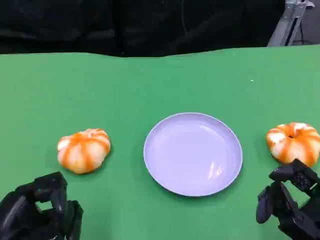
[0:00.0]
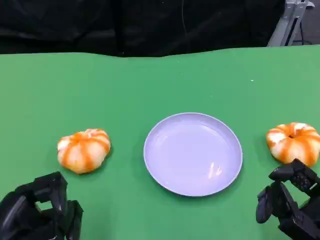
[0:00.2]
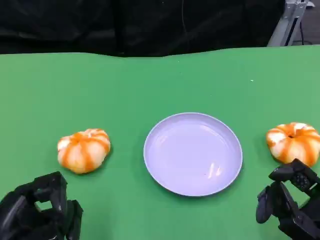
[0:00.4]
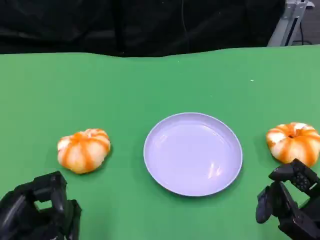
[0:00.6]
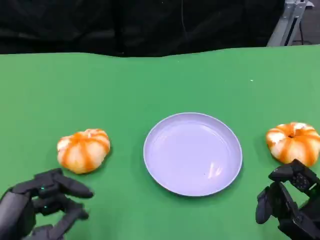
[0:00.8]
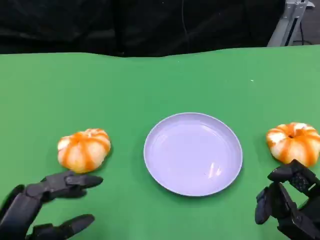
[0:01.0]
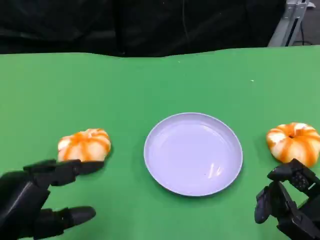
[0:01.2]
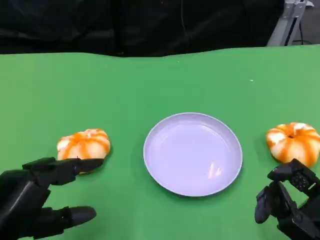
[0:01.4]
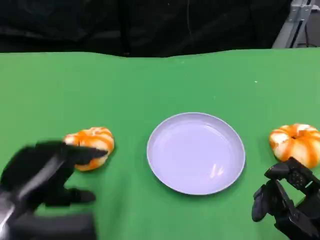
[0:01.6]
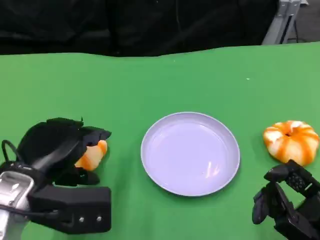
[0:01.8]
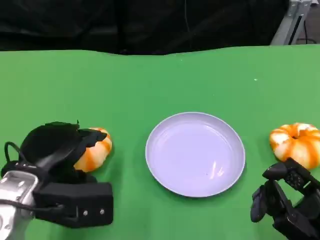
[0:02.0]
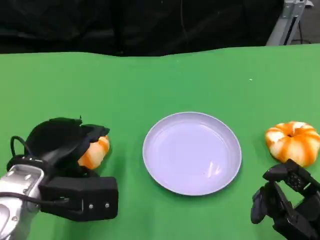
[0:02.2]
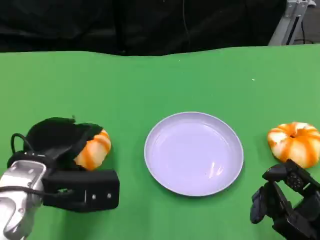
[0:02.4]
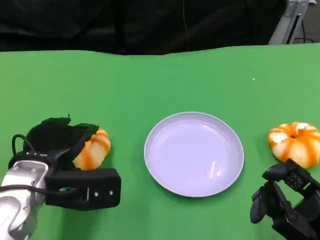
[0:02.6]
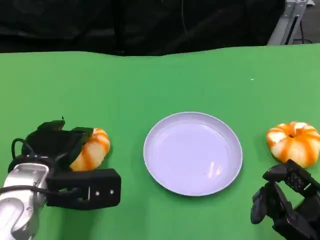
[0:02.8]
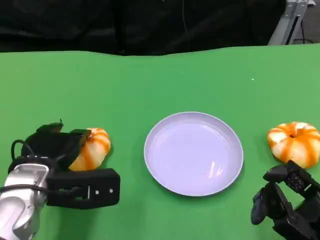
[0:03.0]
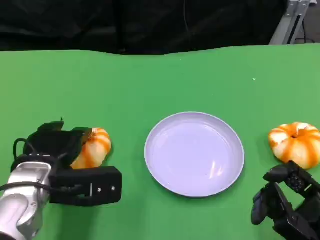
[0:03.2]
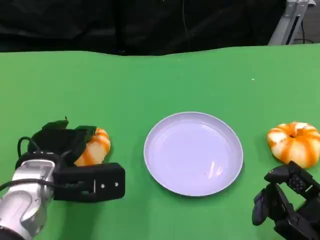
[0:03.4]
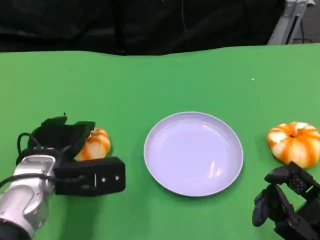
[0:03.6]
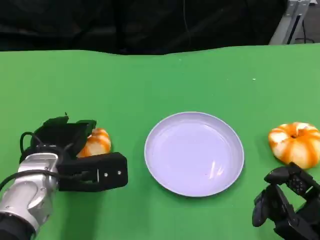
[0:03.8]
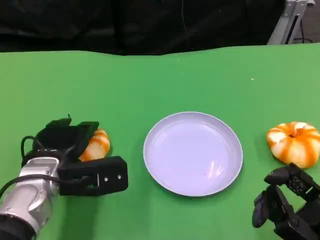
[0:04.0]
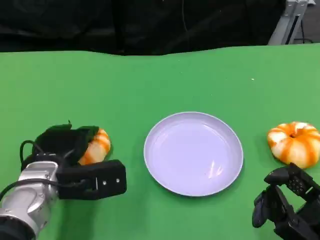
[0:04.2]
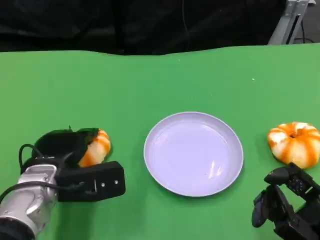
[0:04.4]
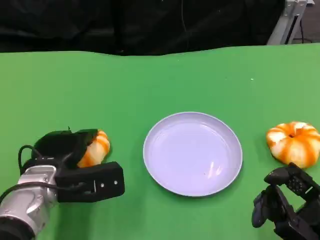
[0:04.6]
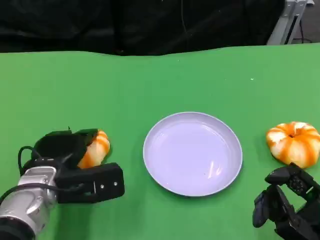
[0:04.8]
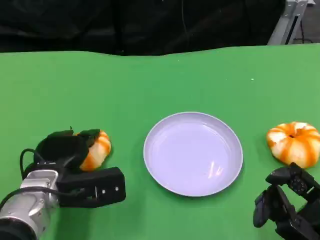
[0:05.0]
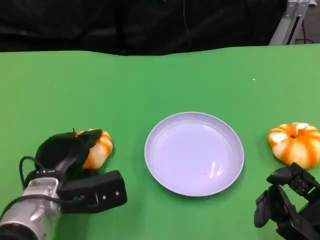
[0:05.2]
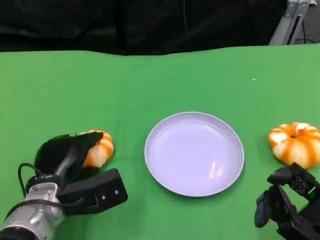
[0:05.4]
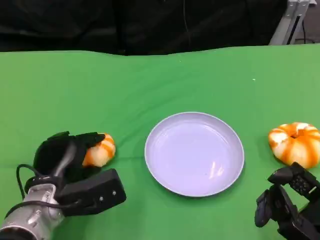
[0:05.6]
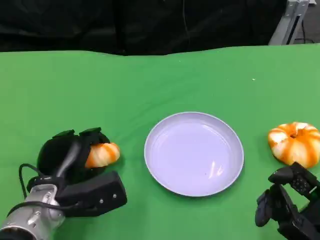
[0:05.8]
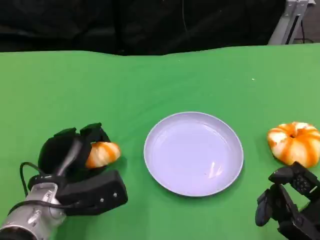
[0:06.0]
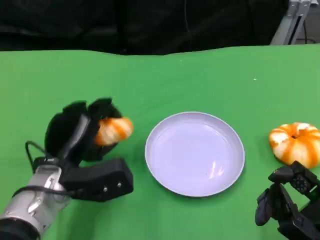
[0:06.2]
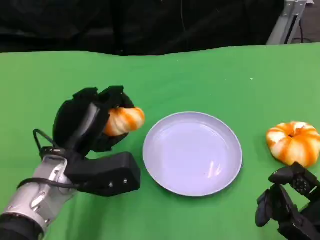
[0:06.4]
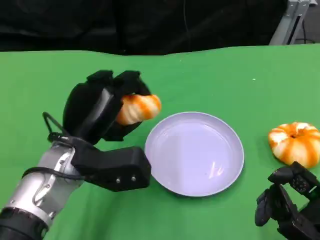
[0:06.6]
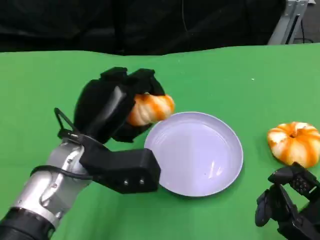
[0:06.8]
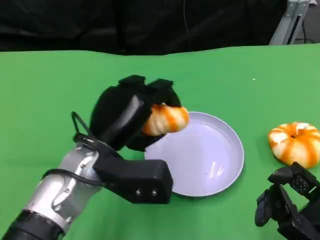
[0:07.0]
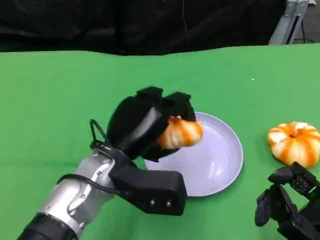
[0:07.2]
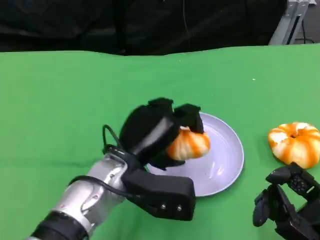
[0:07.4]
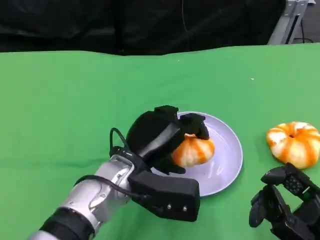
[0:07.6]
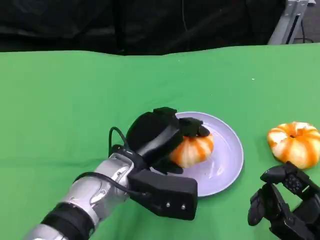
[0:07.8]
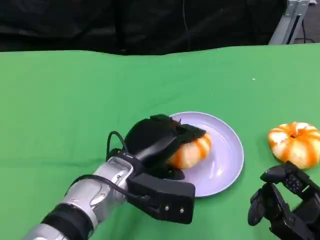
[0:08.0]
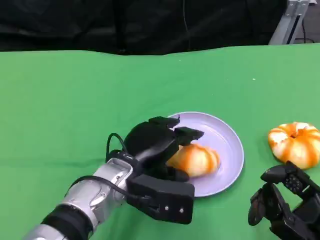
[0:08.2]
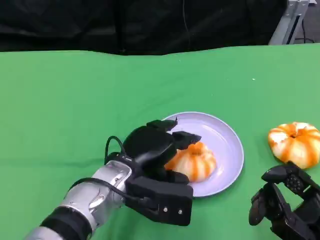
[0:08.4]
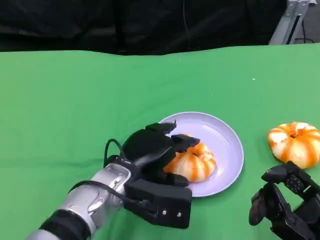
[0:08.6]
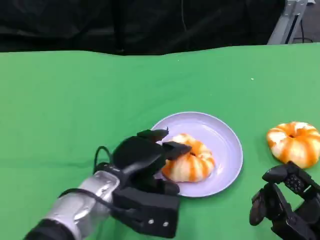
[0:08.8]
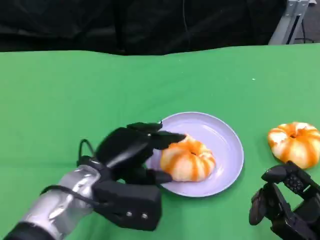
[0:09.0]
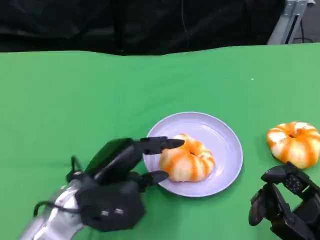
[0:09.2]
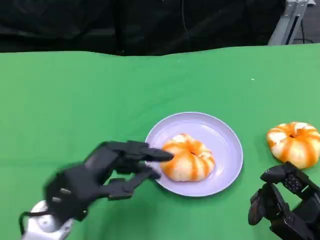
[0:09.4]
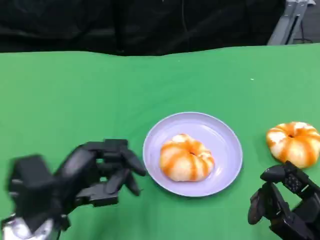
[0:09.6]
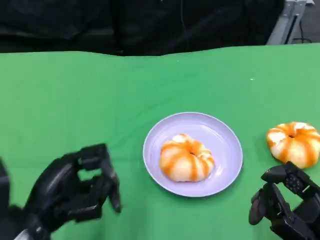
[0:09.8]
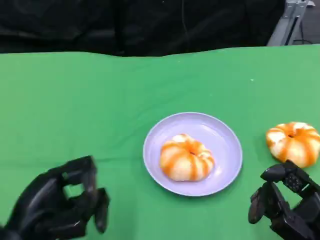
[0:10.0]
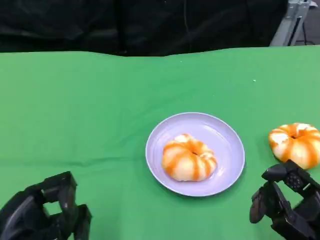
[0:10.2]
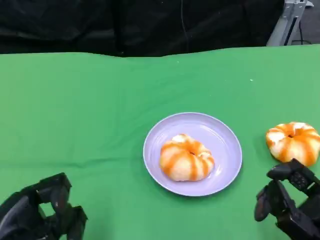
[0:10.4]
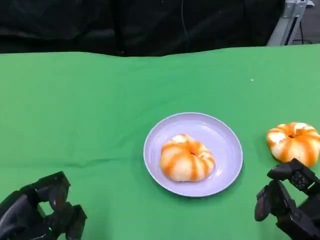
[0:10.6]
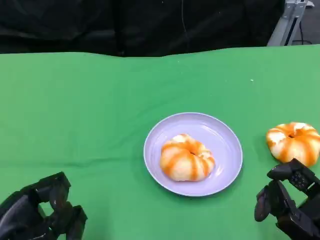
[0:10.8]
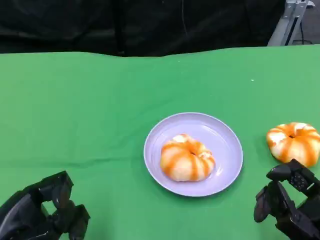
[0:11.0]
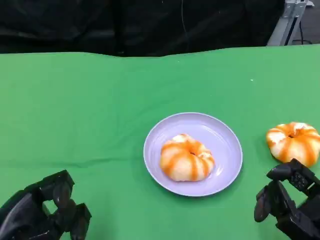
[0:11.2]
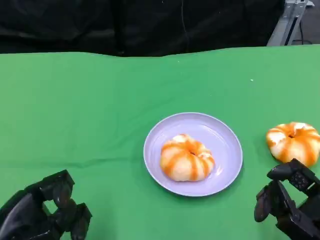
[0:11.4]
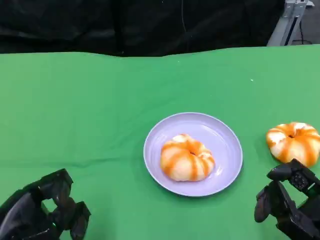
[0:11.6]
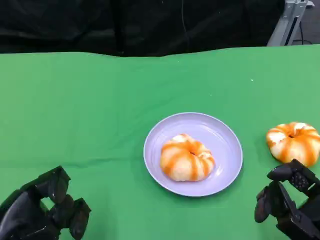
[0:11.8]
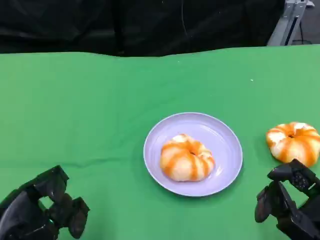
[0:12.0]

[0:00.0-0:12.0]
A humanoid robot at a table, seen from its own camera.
Task of the whole recording: Grasp the bread from the table and place it into the plate.
0:00.0 to 0:01.6: The left hand is displaced forward by roughly 5 cm.
0:01.6 to 0:03.0: The left hand travels forward by about 5 cm.
0:03.0 to 0:04.4: The hands make only small movements.
0:06.0 to 0:07.6: The left hand goes some 10 cm to the right and upward.
0:07.6 to 0:09.0: The left hand goes roughly 5 cm to the left.
0:09.0 to 0:10.4: The left hand heads to the left and backward, covering some 15 cm.
0:10.4 to 0:12.0: The hands make only small movements.

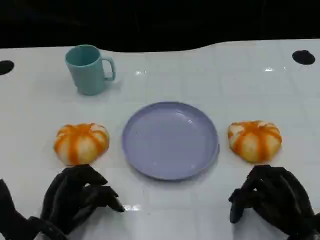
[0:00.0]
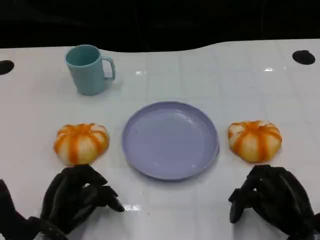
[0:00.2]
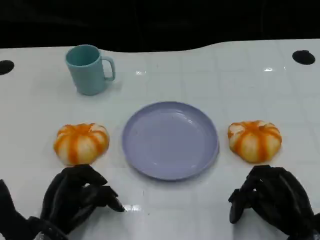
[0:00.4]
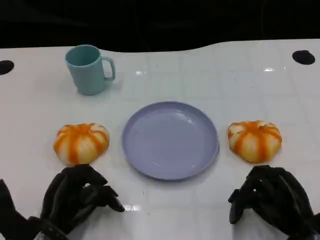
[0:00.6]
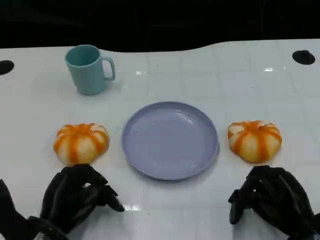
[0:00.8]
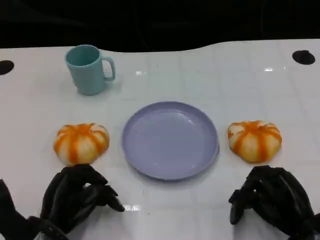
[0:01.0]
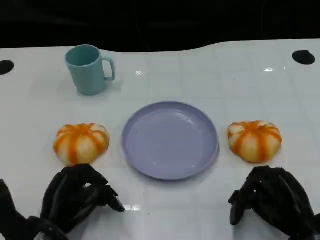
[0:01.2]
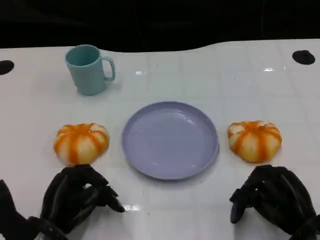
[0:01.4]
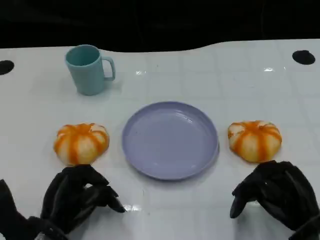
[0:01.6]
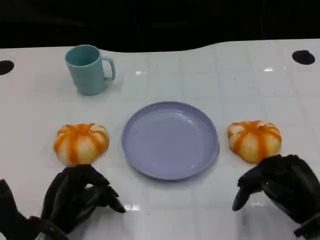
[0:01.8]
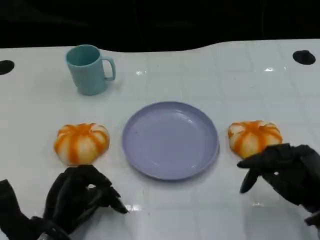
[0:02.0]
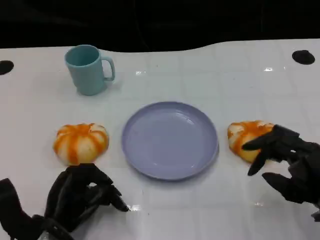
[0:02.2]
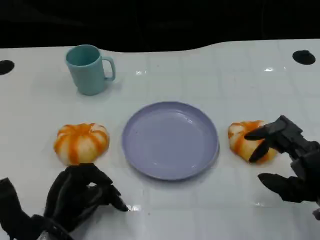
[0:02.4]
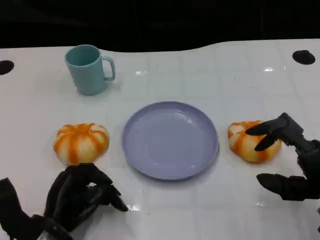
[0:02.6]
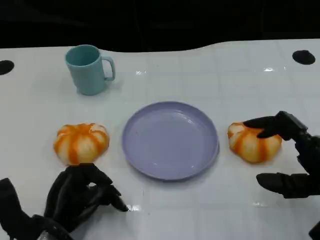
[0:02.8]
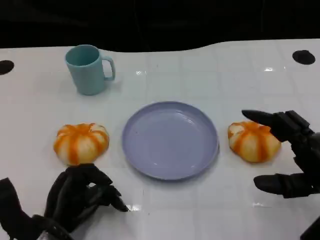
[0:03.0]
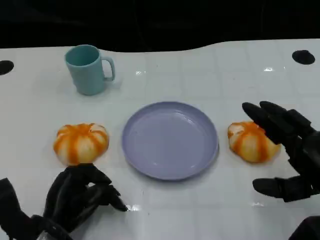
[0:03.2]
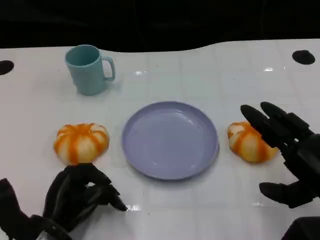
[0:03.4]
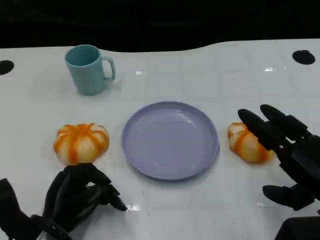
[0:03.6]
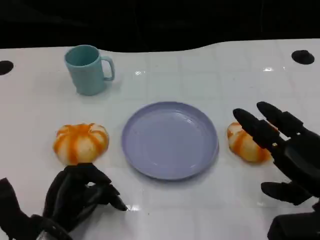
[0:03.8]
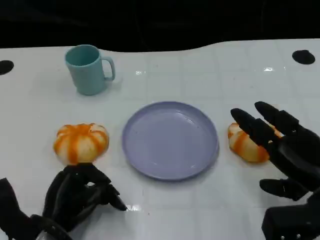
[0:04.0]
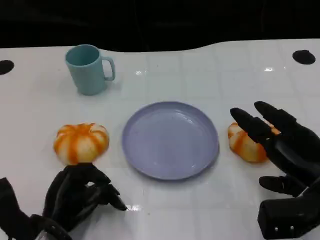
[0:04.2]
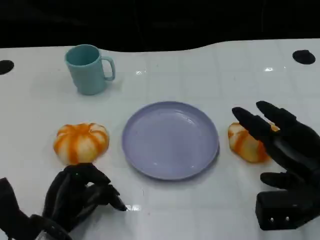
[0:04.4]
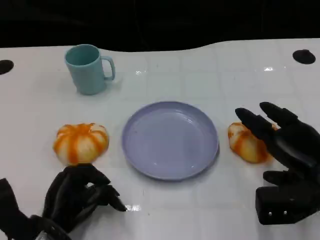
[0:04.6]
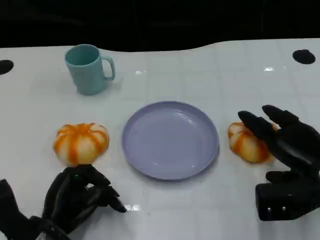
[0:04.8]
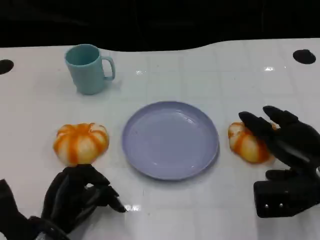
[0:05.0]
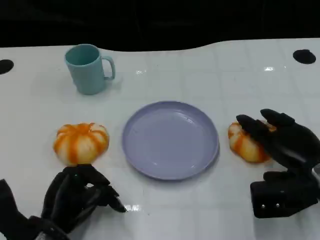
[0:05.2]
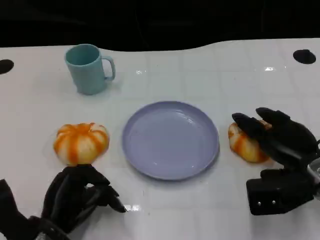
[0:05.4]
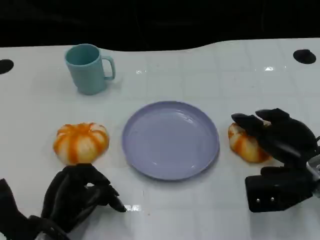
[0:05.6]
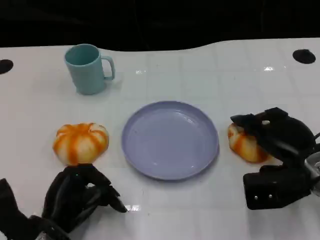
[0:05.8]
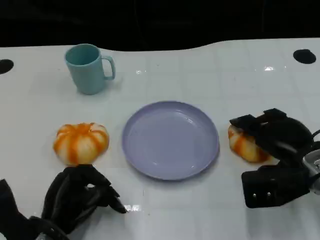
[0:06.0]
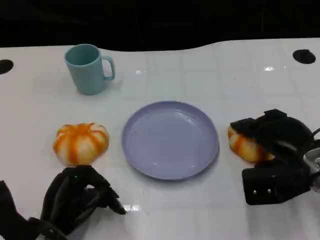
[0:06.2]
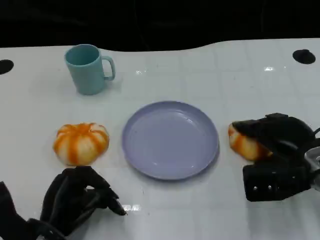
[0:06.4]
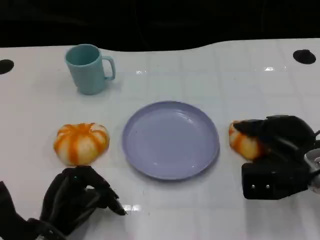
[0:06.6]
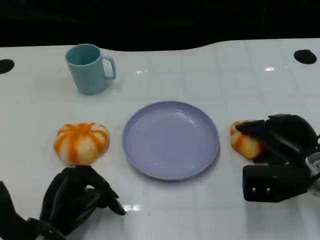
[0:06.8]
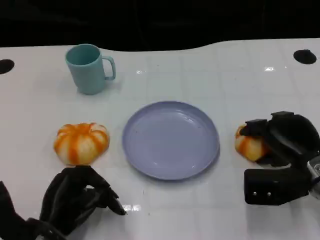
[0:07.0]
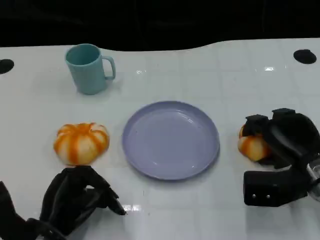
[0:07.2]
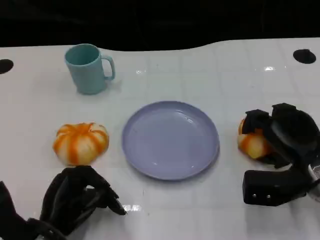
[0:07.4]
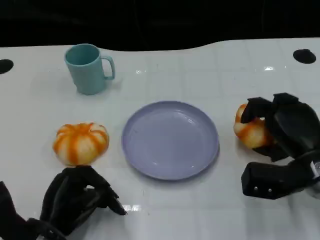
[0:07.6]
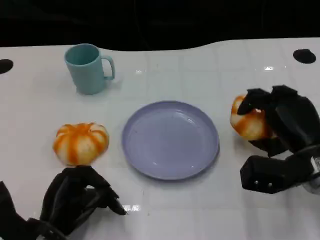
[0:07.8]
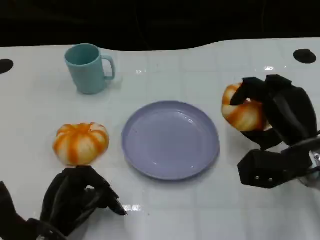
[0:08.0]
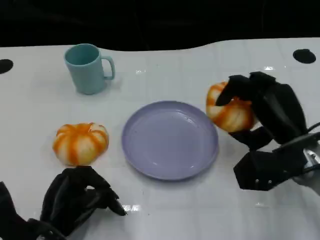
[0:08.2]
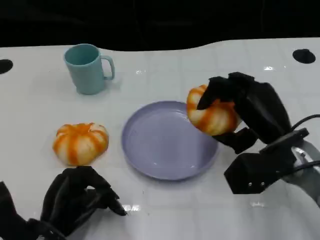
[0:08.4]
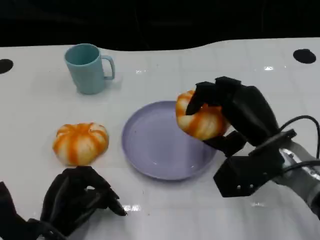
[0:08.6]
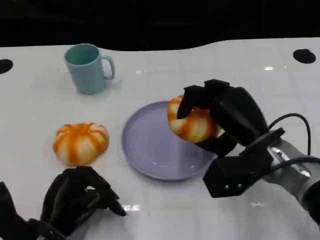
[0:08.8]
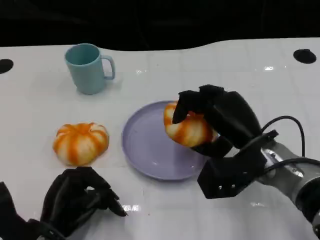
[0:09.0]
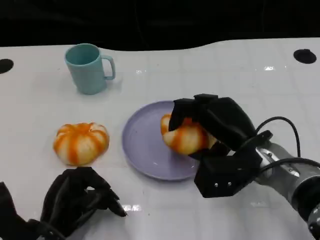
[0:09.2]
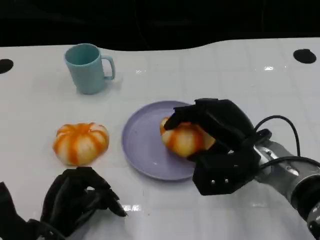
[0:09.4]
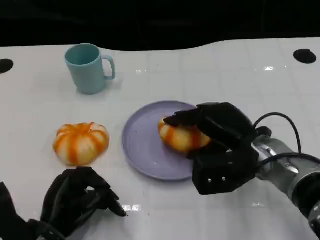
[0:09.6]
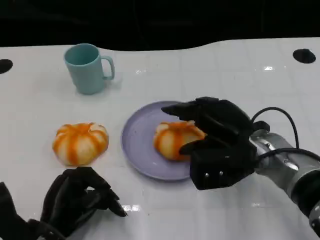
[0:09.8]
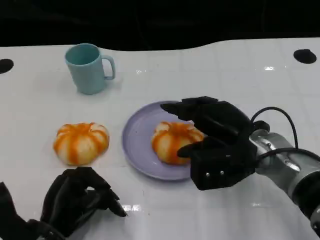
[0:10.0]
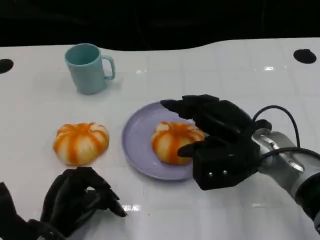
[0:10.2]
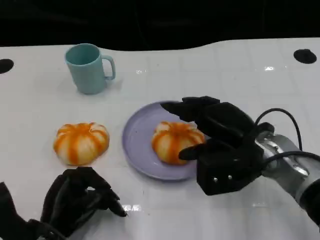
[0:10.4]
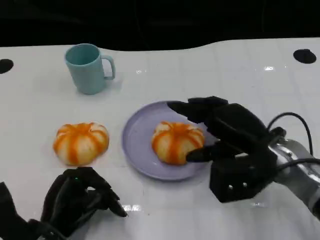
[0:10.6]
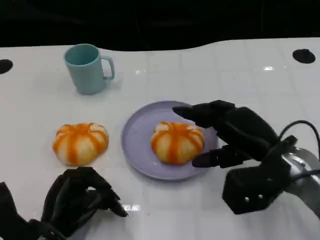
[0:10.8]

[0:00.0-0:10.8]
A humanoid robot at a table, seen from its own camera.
Task of the whole recording: Grasp the bread from the table and place it into the plate.
0:00.0 to 0:01.6: The hands move only a little.
0:01.6 to 0:03.0: The right hand moves upward, roughly 5 cm.
0:03.0 to 0:04.6: The right hand travels forward by approximately 5 cm.
0:04.6 to 0:06.2: The hands stay close to where they were, moving slightly.
0:07.8 to 0:09.2: The right hand moves to the left, roughly 10 cm.
0:09.2 to 0:10.8: The hands stay close to where they were, moving slightly.
